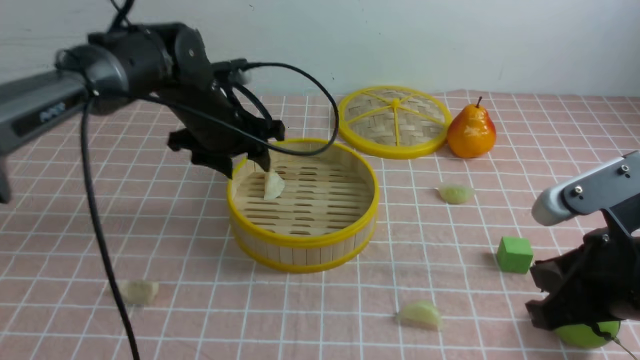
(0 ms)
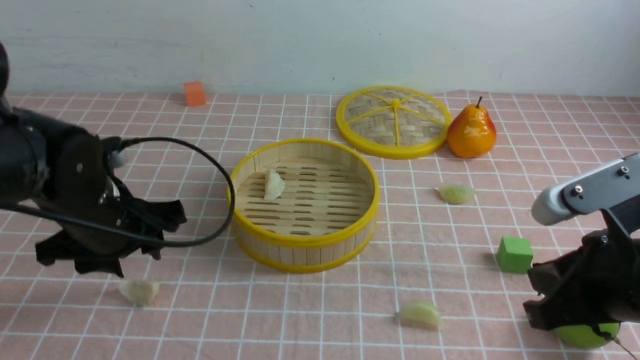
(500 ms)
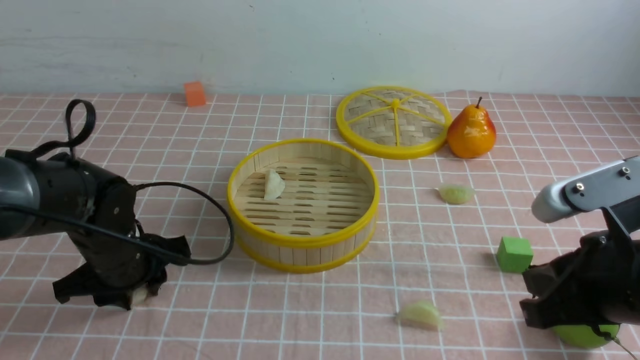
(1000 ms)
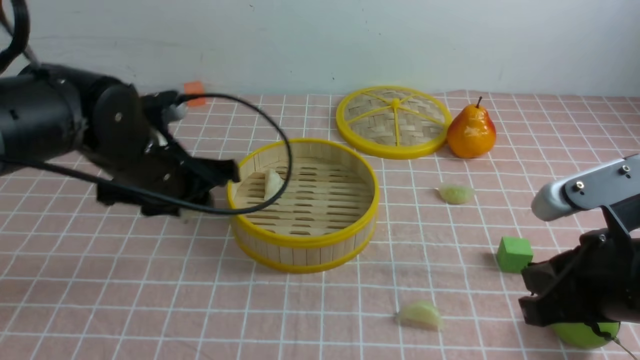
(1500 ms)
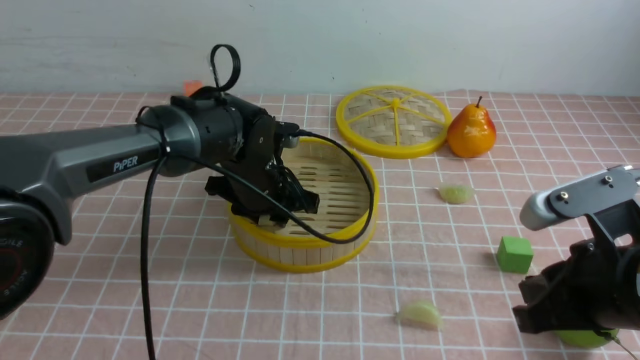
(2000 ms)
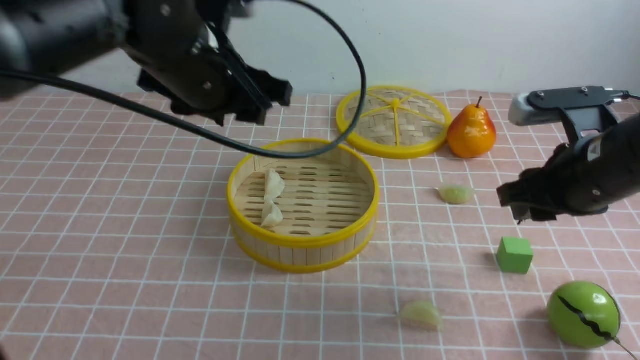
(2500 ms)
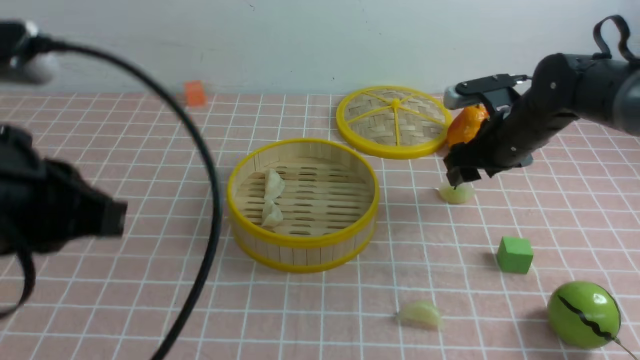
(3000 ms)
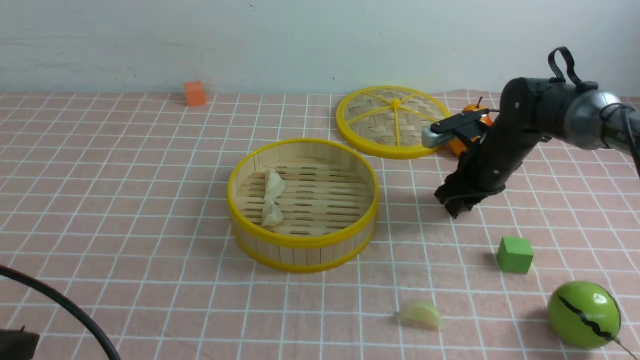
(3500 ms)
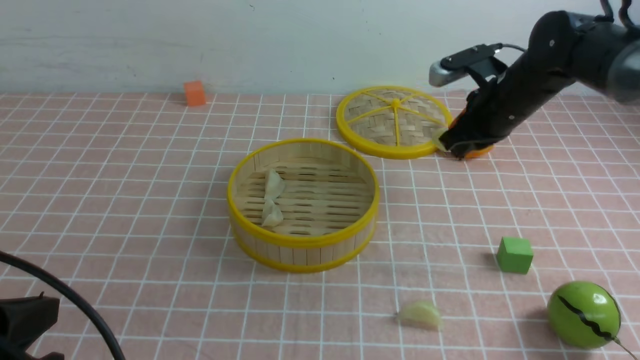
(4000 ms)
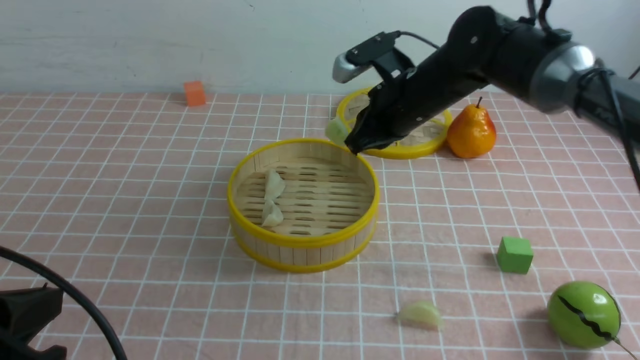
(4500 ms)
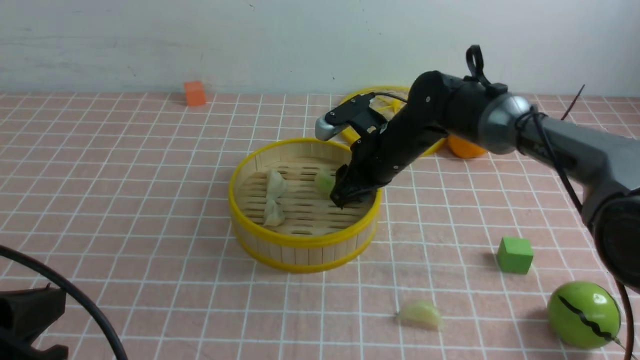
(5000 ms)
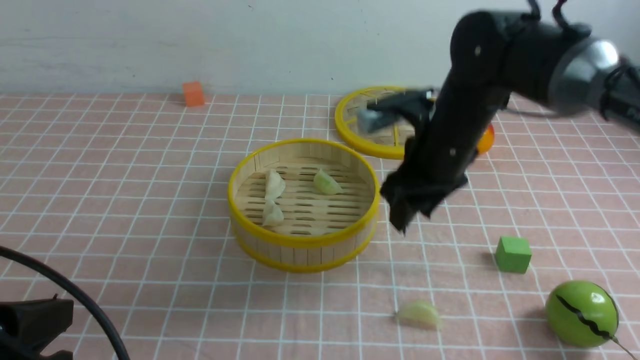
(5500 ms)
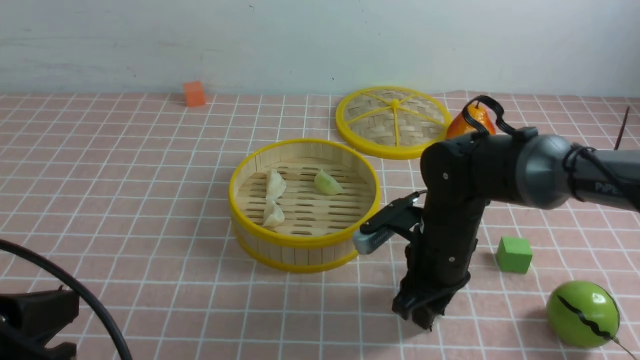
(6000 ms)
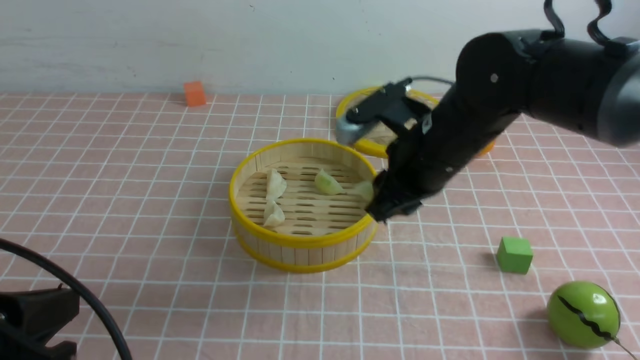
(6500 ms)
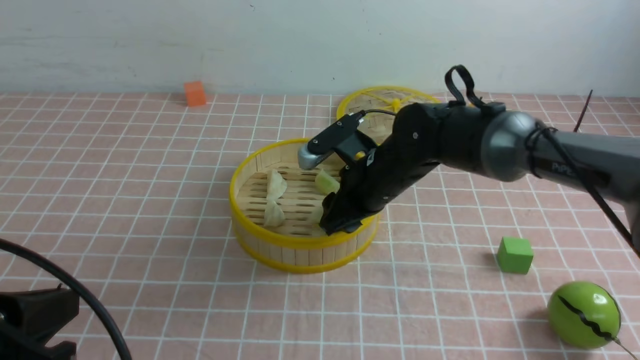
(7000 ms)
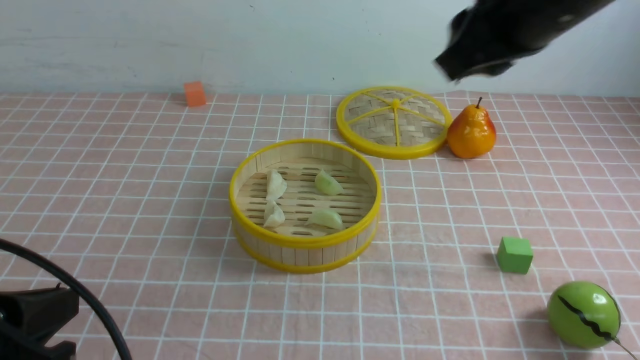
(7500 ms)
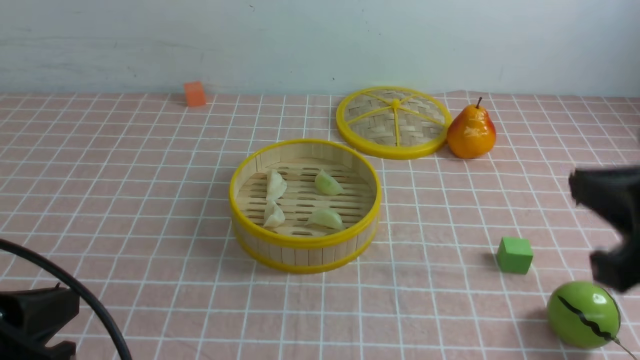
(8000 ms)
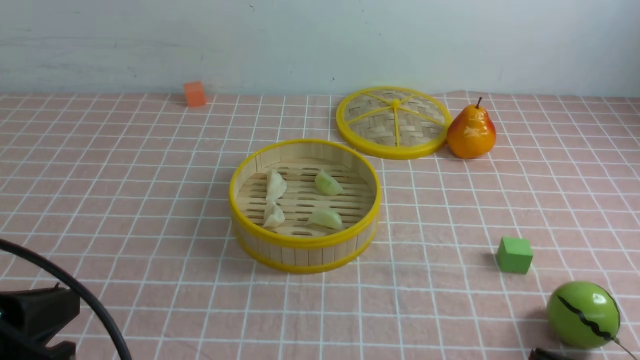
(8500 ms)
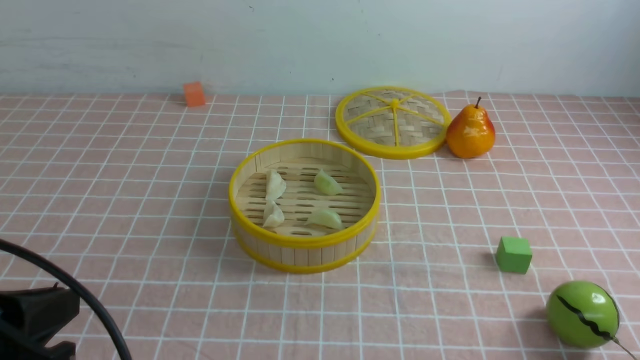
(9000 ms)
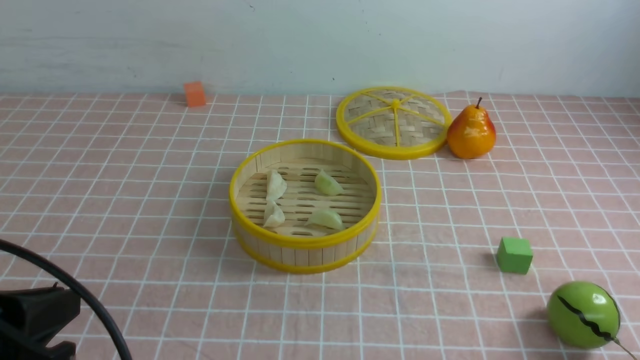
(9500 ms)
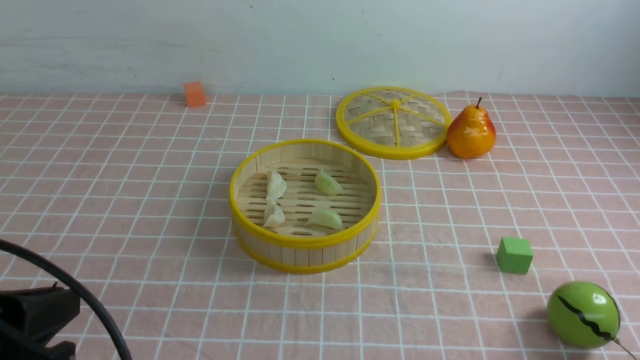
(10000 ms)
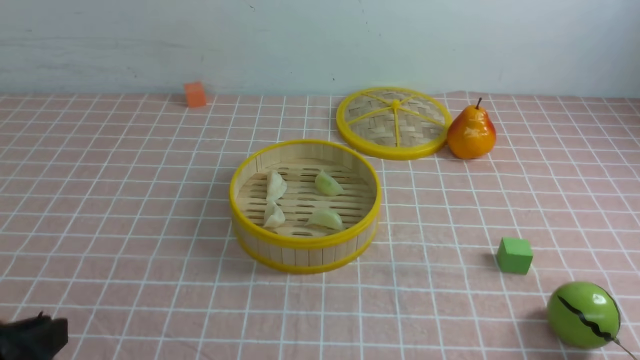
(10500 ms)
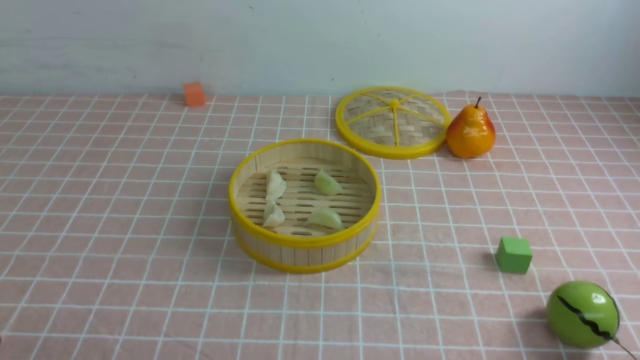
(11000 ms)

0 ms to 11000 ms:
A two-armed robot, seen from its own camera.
Task of the whole recording: put the dumplings into the steamer on the table with the pink tablecloth.
Step, 0 ms to 1000 ms: use the left arm to grab a dumpling.
Step, 1500 ms to 2000 ms: use the left arm to put the dumpling into the steamer.
Step, 2500 ms to 3500 ms: use the right arm to grab a dumpling.
Step, 4000 ms to 5000 ms: use the right arm to put the dumpling into the steamer.
Step, 5500 ms to 6000 ms: use the right arm to grab a dumpling.
Step, 6500 ms to 7000 ms: use the right arm to put the dumpling into the steamer.
0 ms to 2000 ms: The left gripper shifts approximately 10 cm to the right and downward.
2000 ms to 3500 ms: The right gripper moves forward, about 30 cm, and opens, then closes again. Meanwhile the left gripper shifts some 35 cm backward and to the left, and closes its fingers.
3500 ms to 5500 ms: The right gripper shifts approximately 15 cm to the left, backward and upward, and opens its fingers.
5500 ms to 7500 ms: The right gripper heads upward and backward, covering approximately 20 cm, and closes its fingers.
7500 ms to 9000 ms: The right gripper shifts some 35 cm downward, backward and to the right, and closes up.
9000 ms to 11000 ms: The left gripper is displaced downward and backward by about 10 cm.

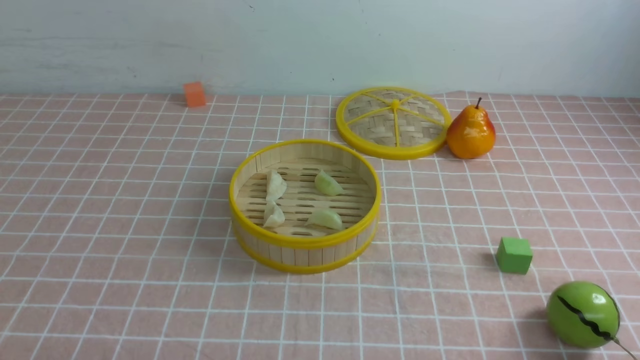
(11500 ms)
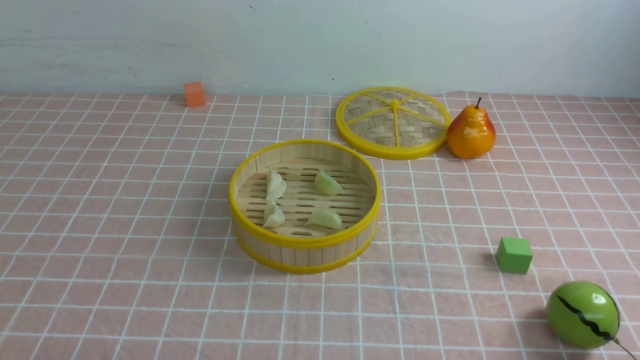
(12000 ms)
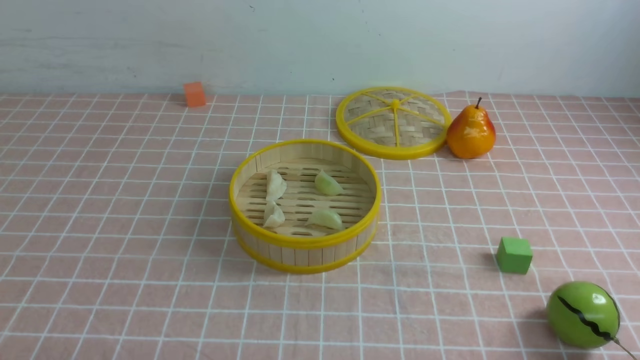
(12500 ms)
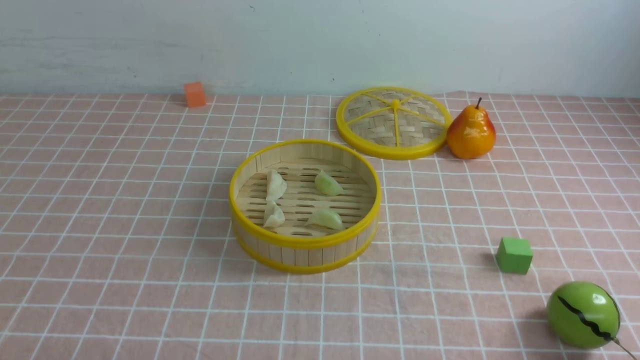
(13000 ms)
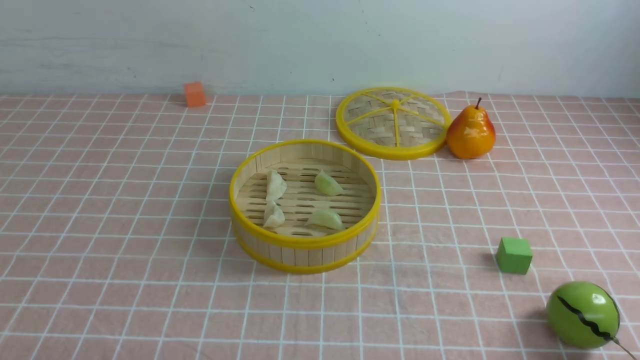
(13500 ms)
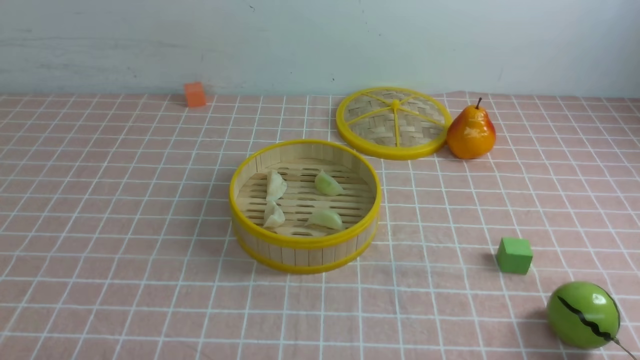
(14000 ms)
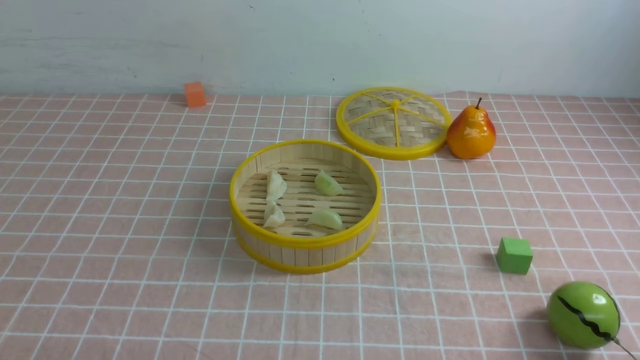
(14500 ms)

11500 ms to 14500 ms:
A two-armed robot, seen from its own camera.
Task of the whole recording: put the dumplings into the steamer on the table with the pink tablecloth.
11500 ms to 14500 ms: The two grippers keep their place.
